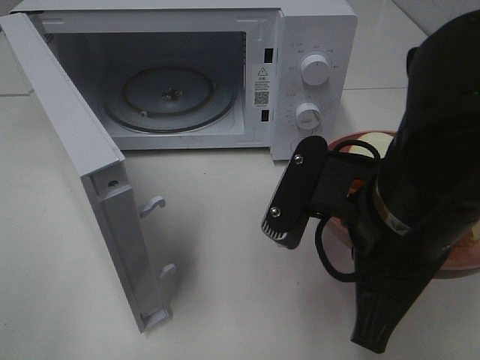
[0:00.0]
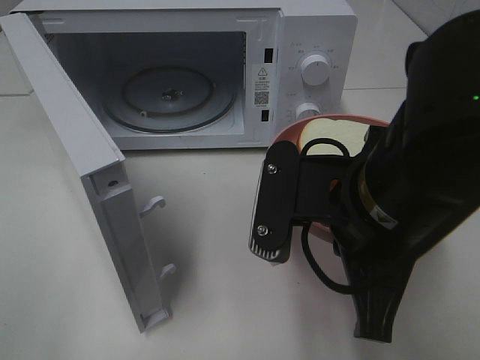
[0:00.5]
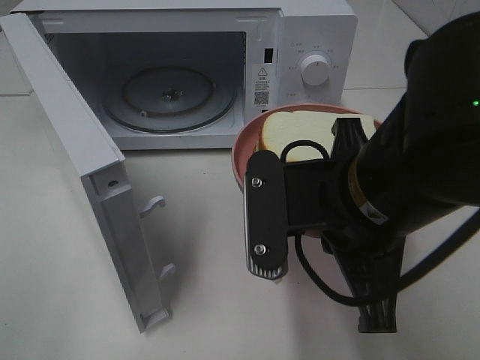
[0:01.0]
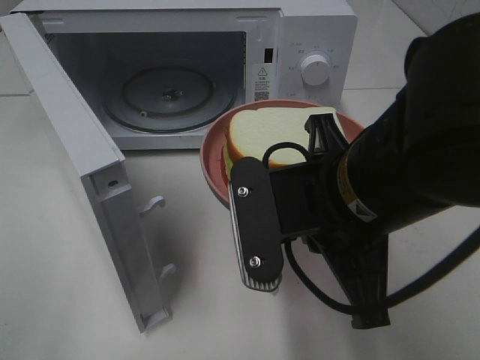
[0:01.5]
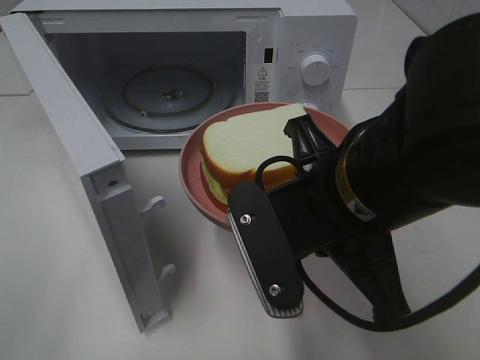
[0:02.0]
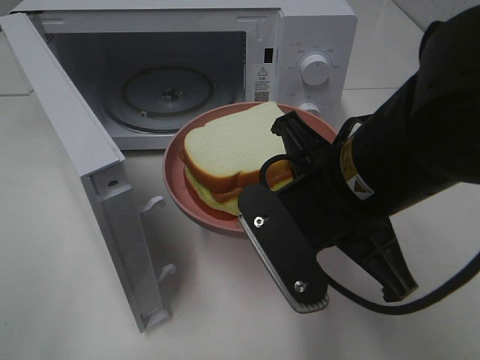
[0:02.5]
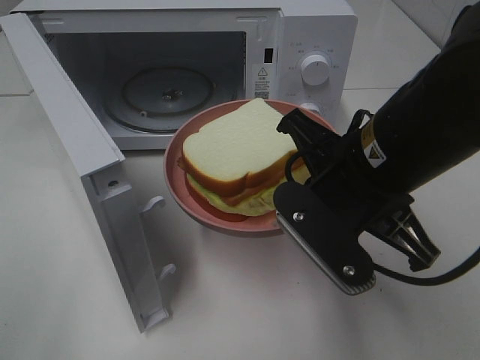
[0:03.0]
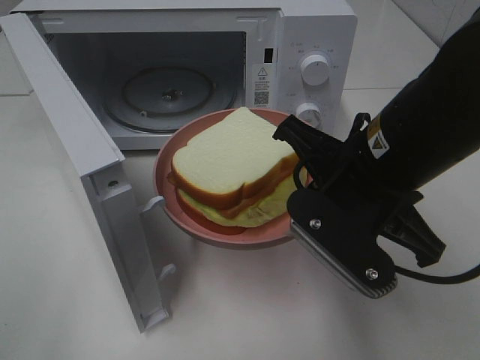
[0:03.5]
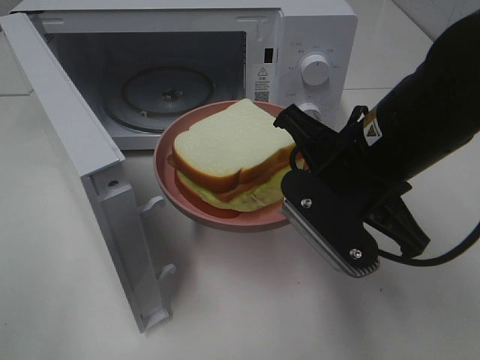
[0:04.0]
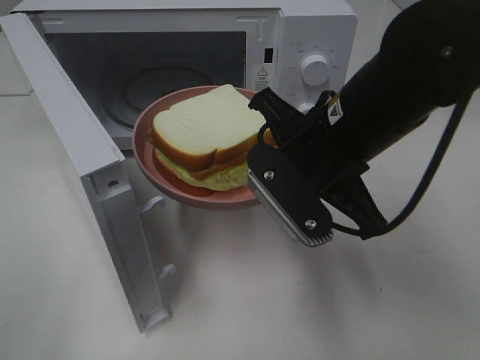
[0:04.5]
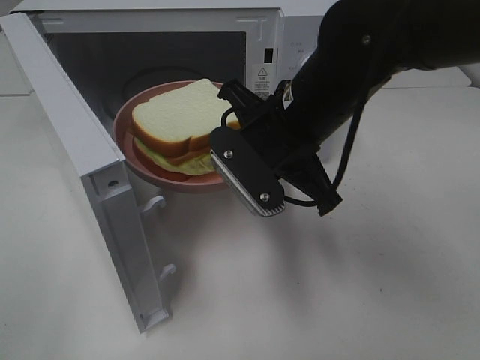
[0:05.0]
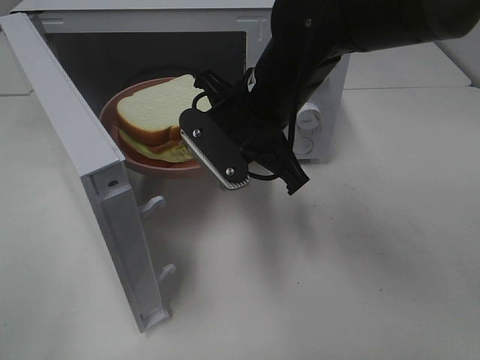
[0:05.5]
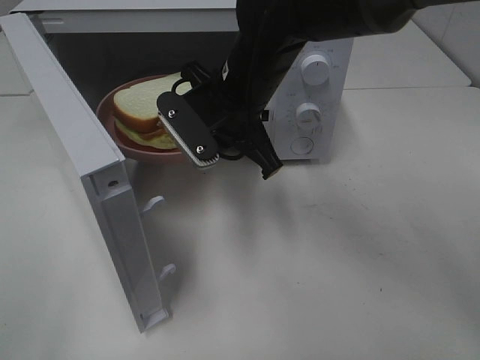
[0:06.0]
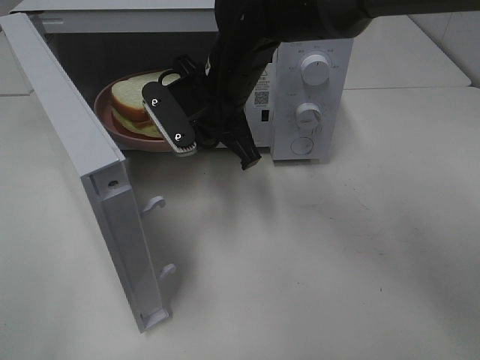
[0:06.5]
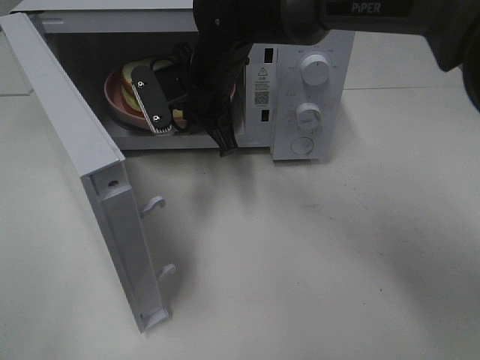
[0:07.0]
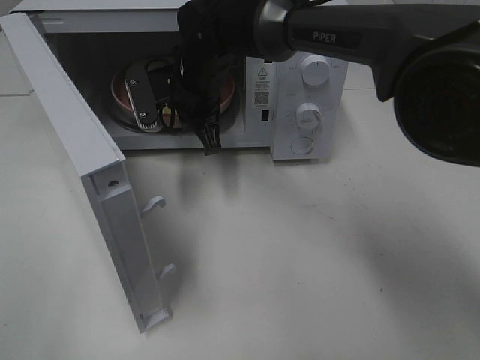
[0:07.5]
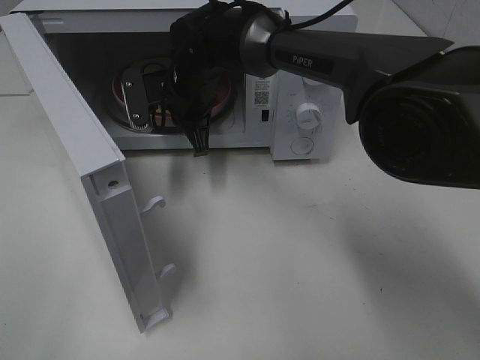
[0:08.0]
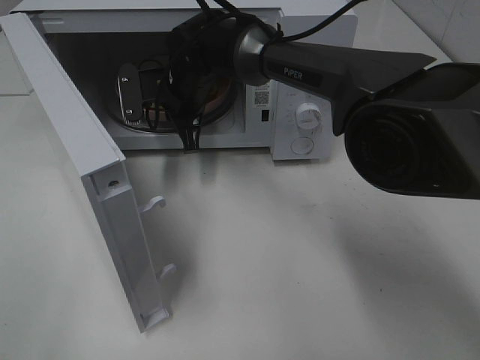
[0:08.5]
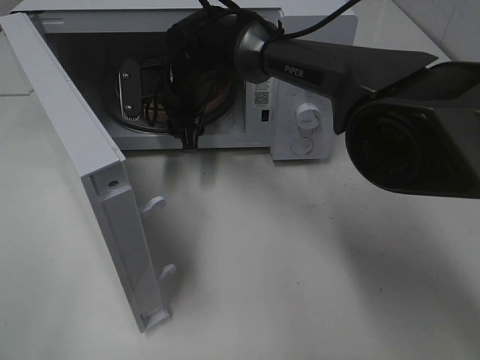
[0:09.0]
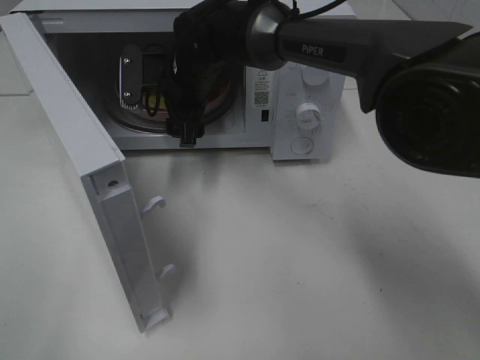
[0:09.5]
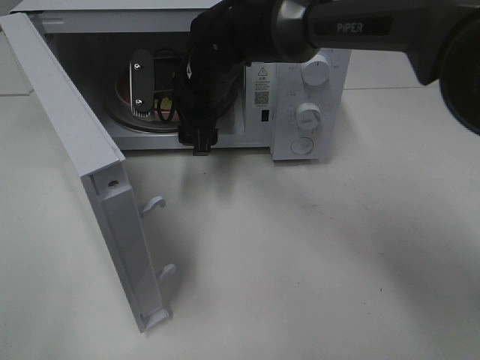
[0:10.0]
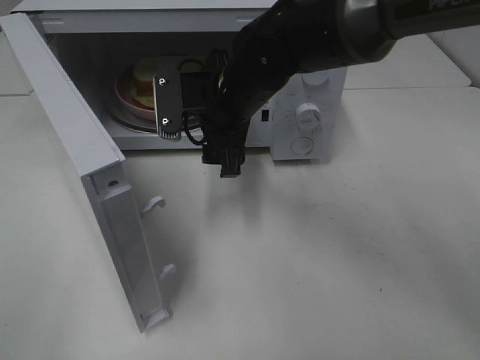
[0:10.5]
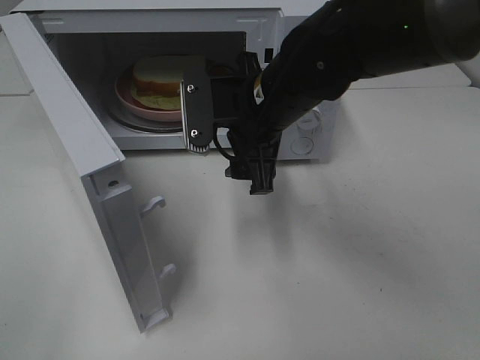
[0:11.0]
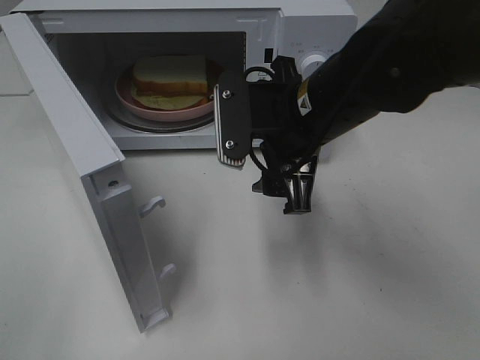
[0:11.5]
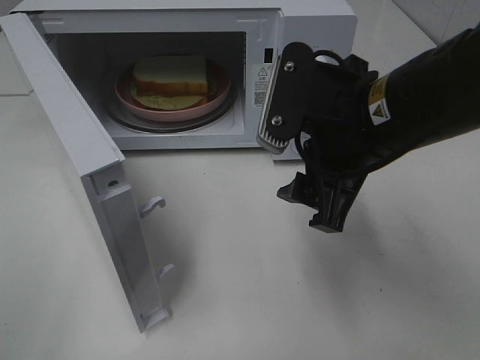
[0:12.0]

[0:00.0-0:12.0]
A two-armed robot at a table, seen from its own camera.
Task of the whole recording: Heat Sandwich.
Step, 0:00.0 to 0:10.0: Right hand: place the plate in the microwave.
0:02.0 to 0:04.0: The right gripper shifts some 5 cm forward.
0:04.0 to 0:06.0: The right gripper shifts about 15 cm forward and to the left.
0:06.0 to 0:08.0: The right gripper goes about 10 cm forward and to the left.
0:08.0 to 0:10.0: The right gripper opens its fingers.
0:10.0 to 0:12.0: The right gripper shifts roughly 25 cm backward and to the right.

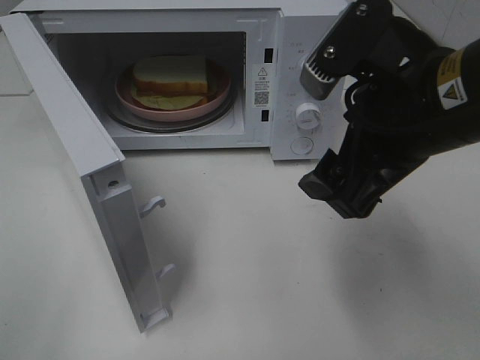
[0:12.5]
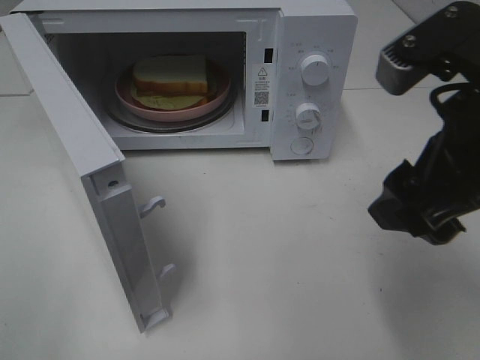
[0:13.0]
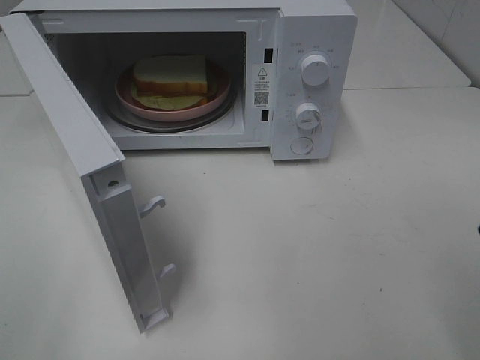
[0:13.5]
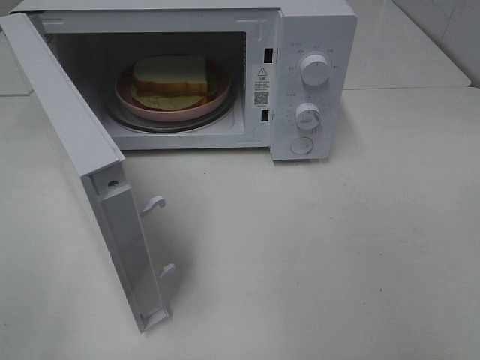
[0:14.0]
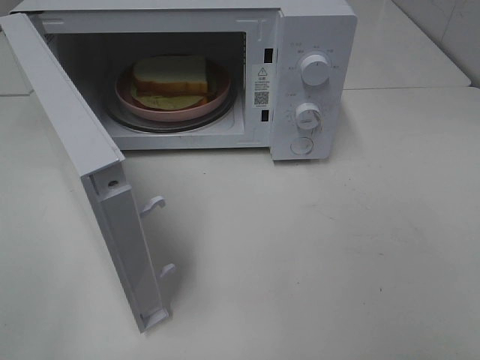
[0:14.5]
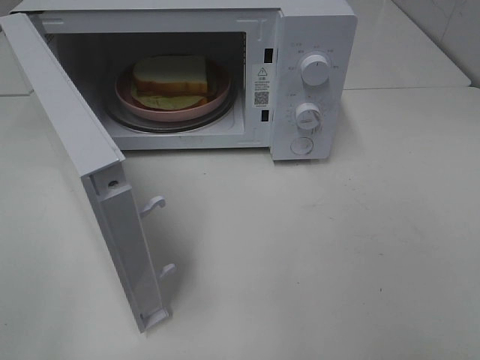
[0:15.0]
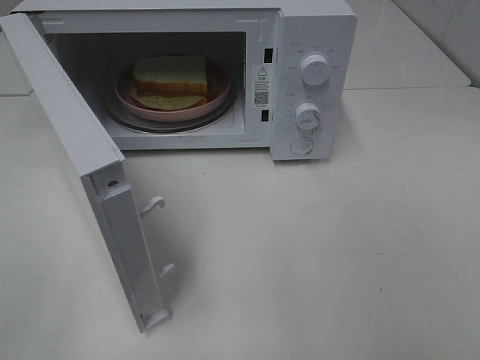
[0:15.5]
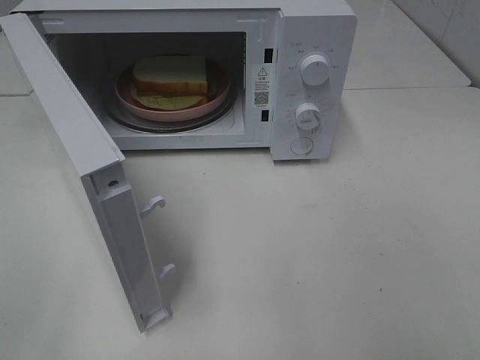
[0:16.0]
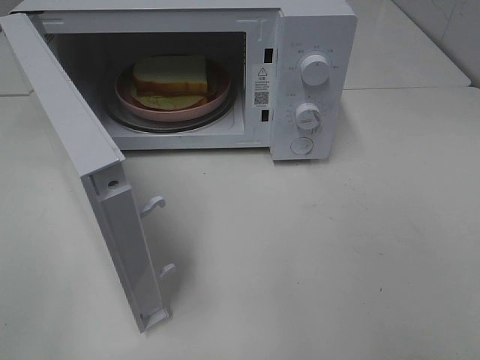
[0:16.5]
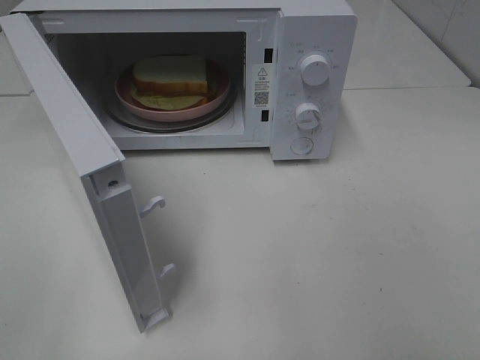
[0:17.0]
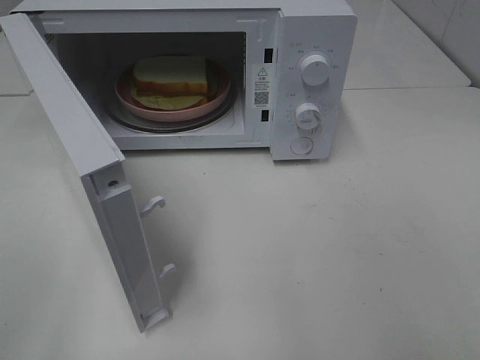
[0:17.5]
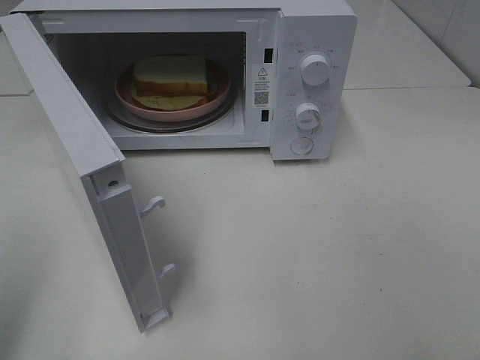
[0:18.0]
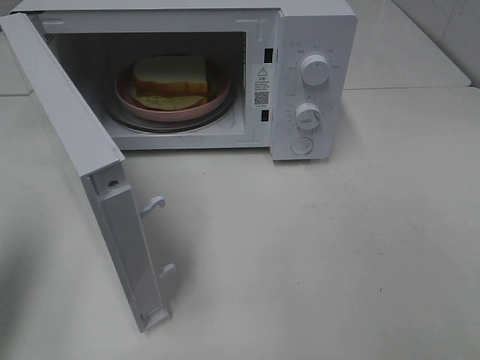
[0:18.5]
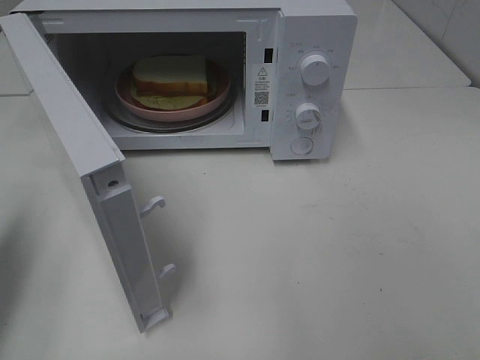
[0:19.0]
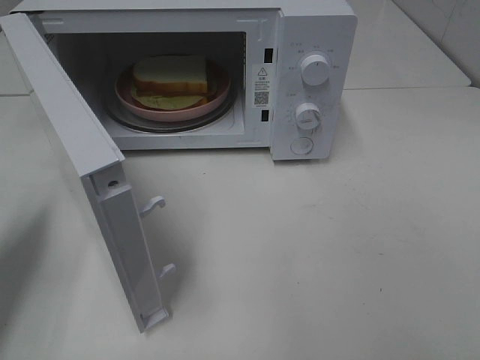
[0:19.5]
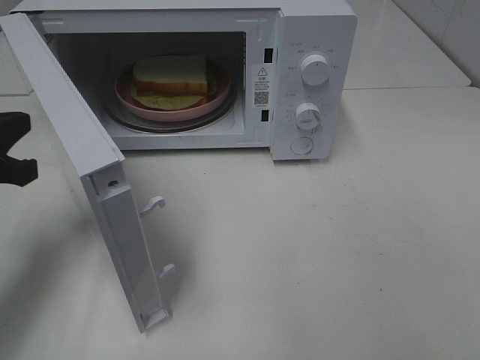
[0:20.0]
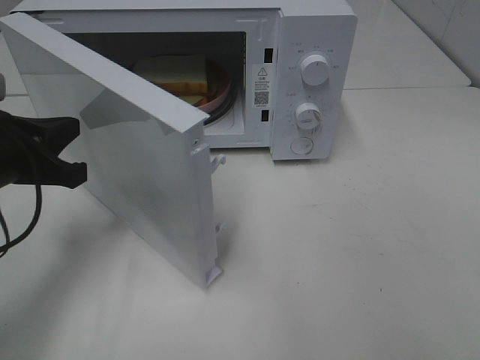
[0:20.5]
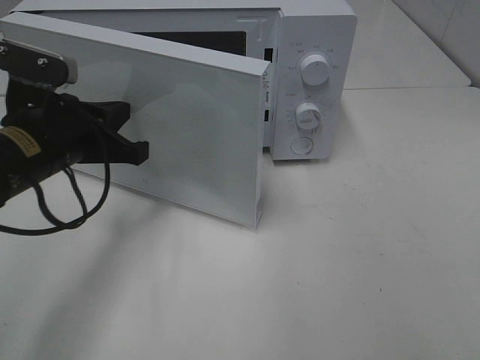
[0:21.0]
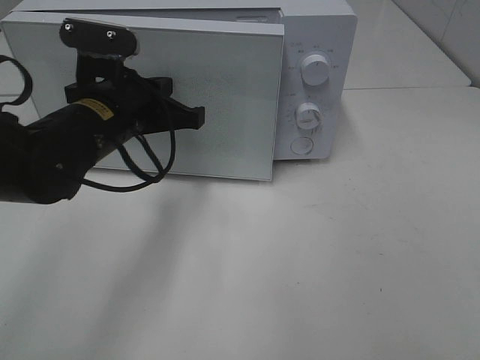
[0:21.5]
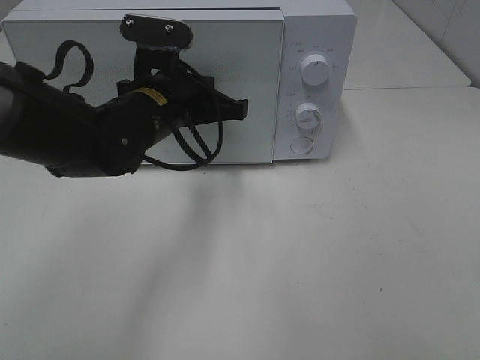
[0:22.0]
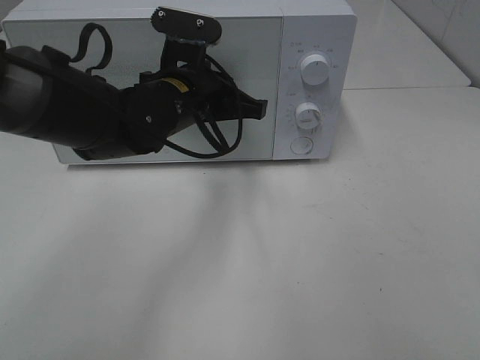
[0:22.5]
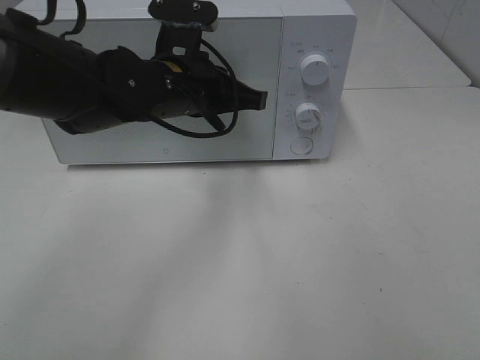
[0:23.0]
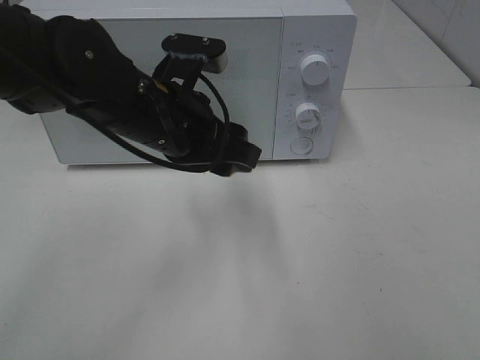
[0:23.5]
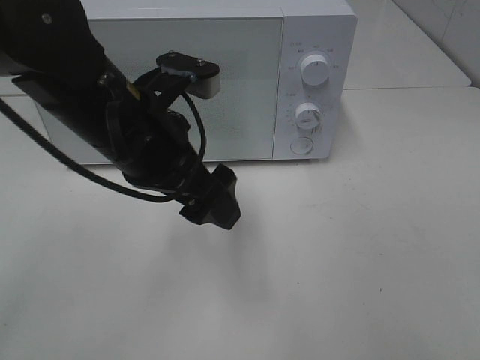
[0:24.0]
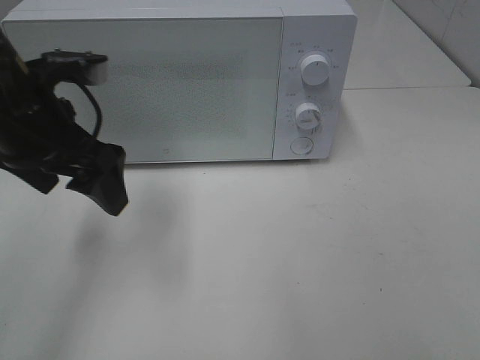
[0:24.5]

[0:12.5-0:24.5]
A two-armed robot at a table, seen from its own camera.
Task of the whole recording: Heat Sandwich.
Step, 0:12.5 to 0:23.5: Left hand: close the microwave door.
0:12.5 to 0:14.5: The right gripper moves backward and to the right, some 25 cm.
0:16.5 to 0:18.5: The left gripper moves forward, some 15 cm, and closes up.
0:18.5 to 0:20.5: The left gripper moves downward, forward and to the right, some 20 cm.
0:20.5 to 0:22.5: The left gripper goes roughly 20 cm to the right and forward.
0:22.5 to 0:24.5: The left gripper heads to the left, backward and upward, covering roughly 15 cm, and opens its fingers.

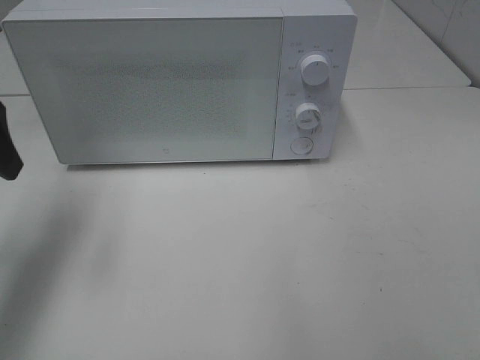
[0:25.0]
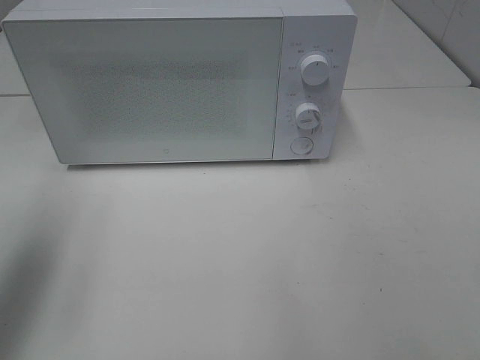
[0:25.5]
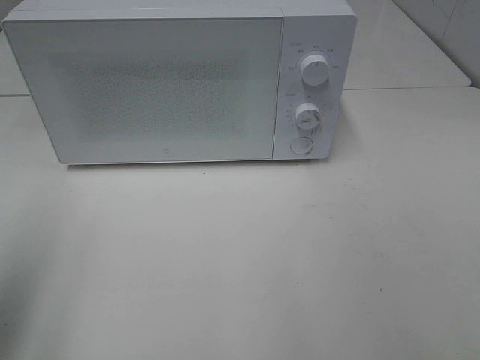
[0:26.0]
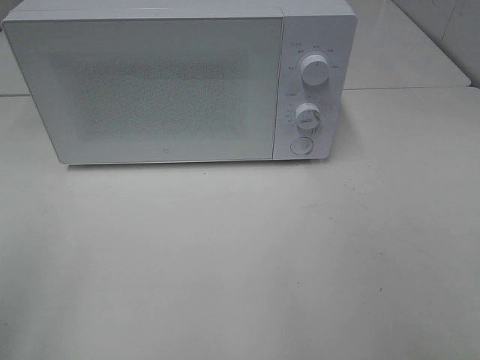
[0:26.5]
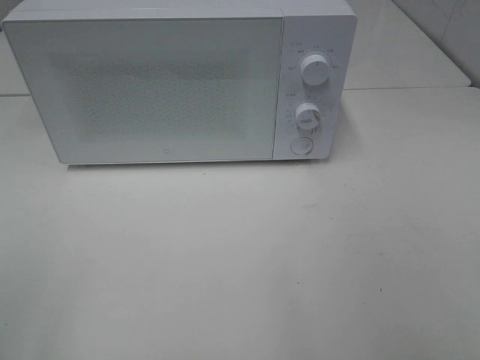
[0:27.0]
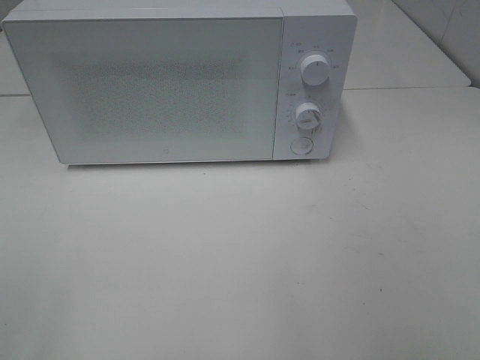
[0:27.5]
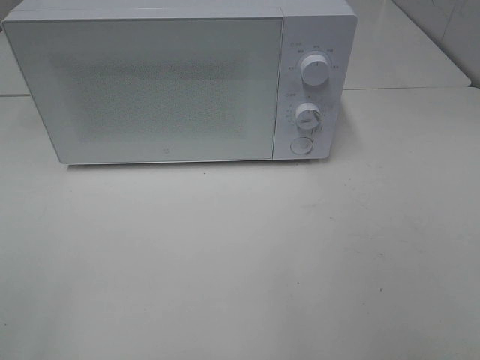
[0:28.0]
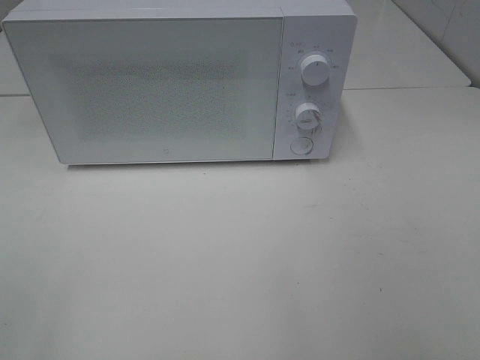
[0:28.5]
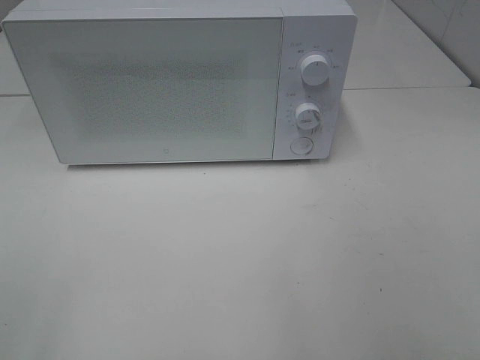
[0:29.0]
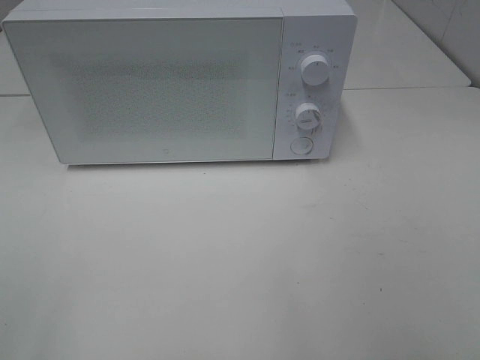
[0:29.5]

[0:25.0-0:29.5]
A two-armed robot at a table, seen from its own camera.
Task of the whole recording: Heat Sandwich.
0:25.0 to 0:27.0: The left gripper goes some 25 cm backward.
